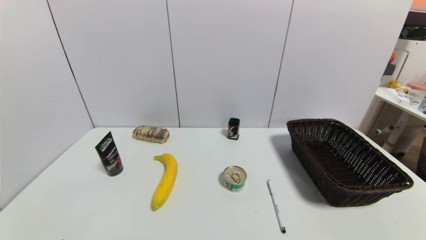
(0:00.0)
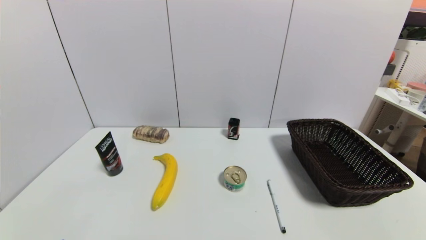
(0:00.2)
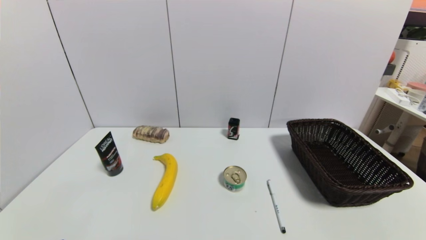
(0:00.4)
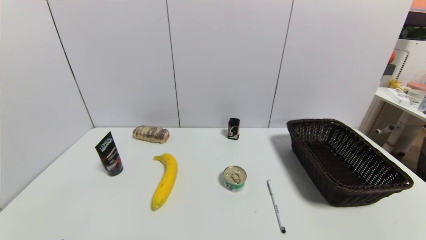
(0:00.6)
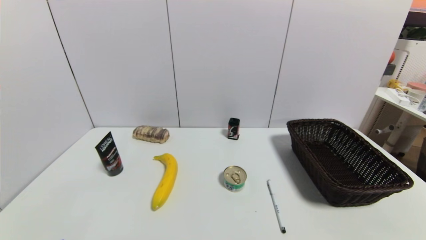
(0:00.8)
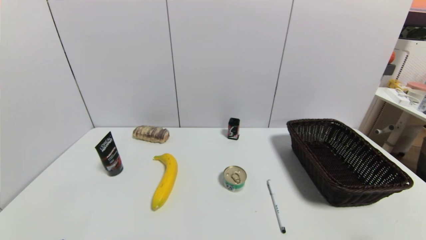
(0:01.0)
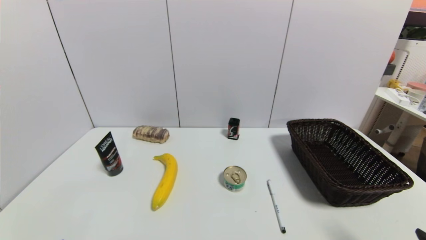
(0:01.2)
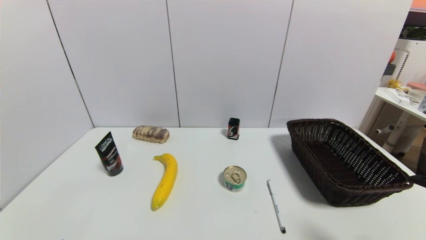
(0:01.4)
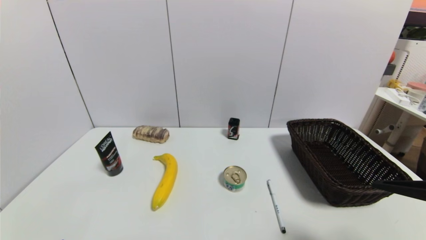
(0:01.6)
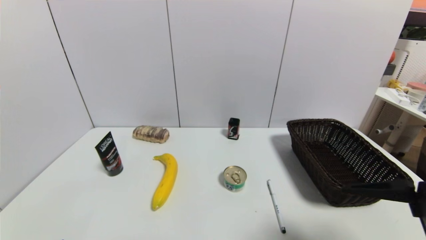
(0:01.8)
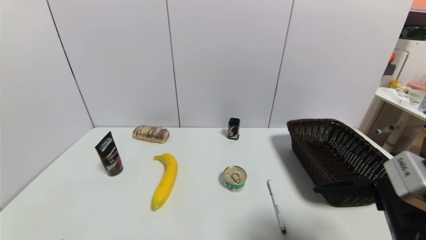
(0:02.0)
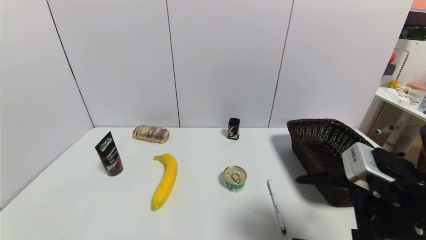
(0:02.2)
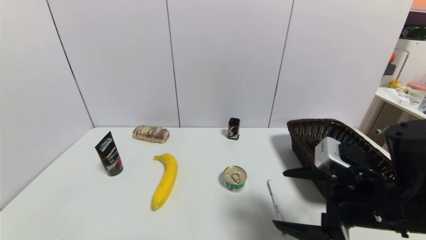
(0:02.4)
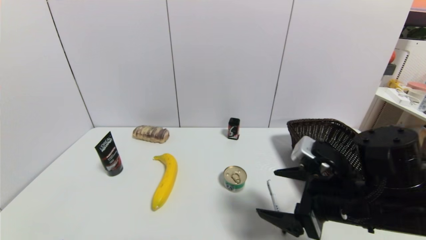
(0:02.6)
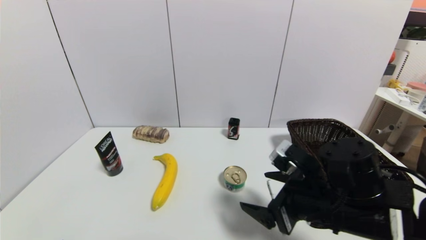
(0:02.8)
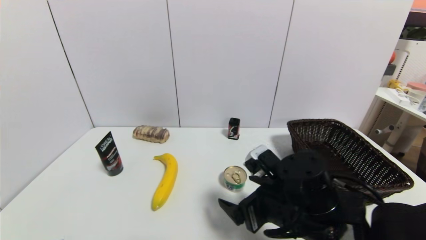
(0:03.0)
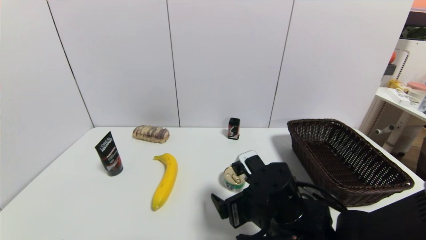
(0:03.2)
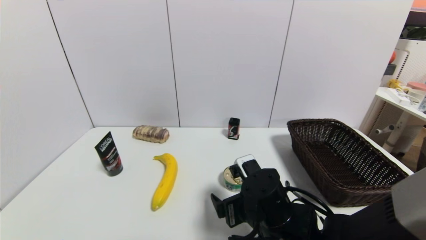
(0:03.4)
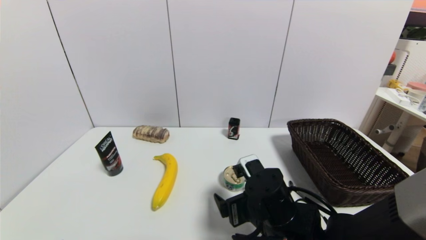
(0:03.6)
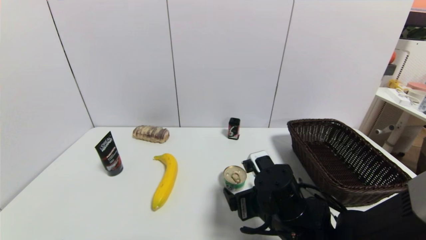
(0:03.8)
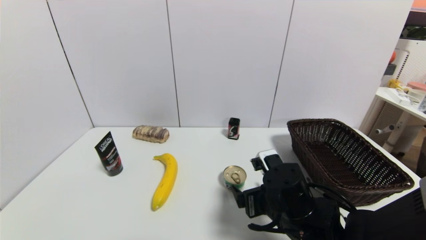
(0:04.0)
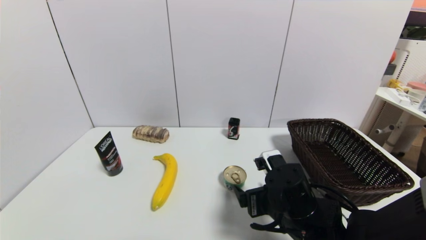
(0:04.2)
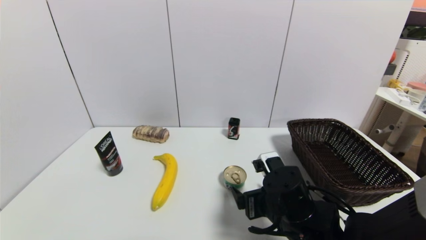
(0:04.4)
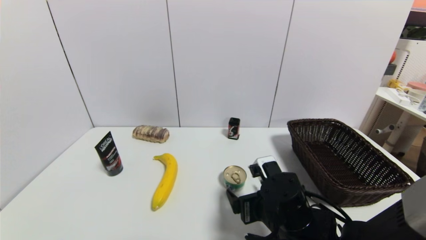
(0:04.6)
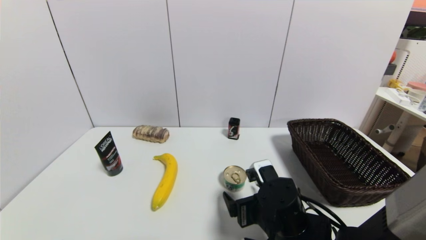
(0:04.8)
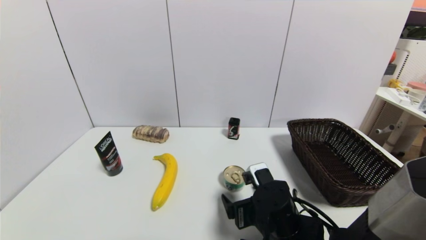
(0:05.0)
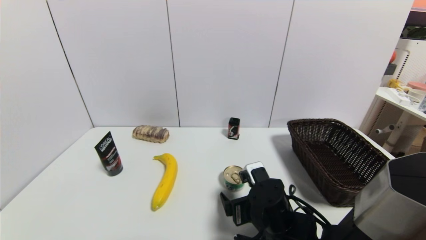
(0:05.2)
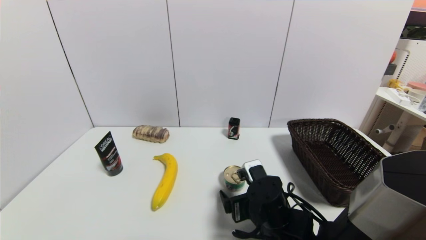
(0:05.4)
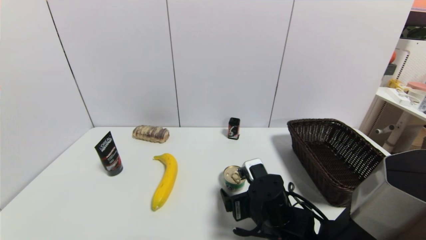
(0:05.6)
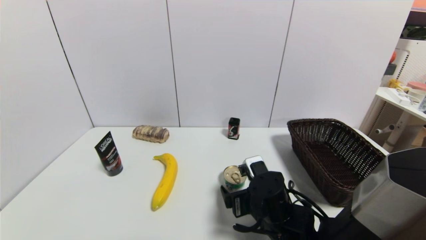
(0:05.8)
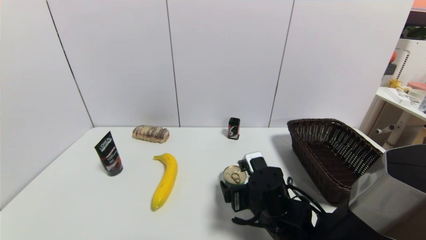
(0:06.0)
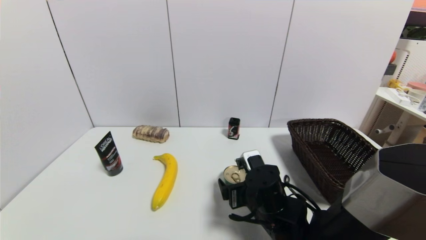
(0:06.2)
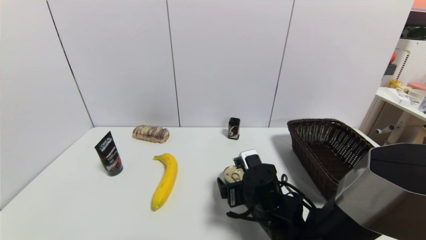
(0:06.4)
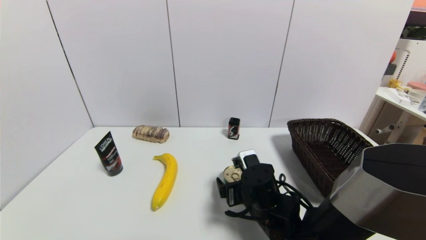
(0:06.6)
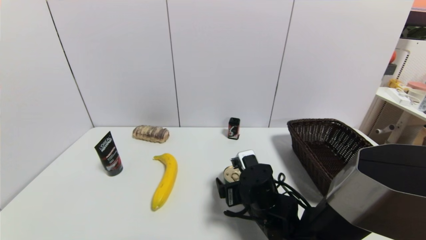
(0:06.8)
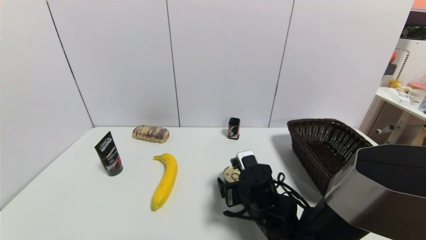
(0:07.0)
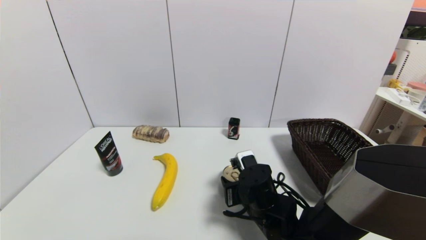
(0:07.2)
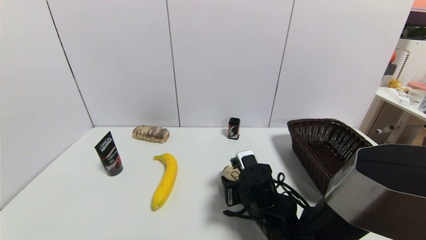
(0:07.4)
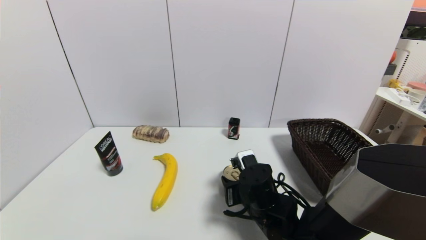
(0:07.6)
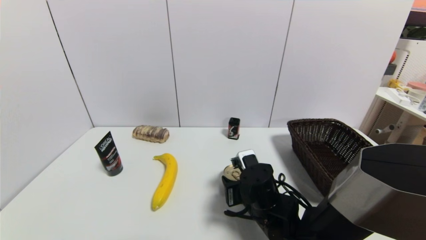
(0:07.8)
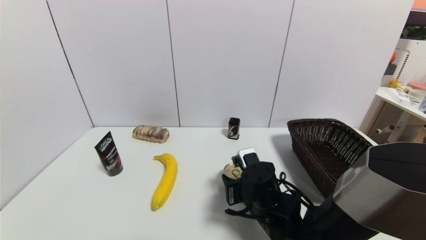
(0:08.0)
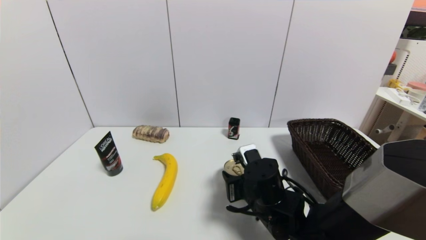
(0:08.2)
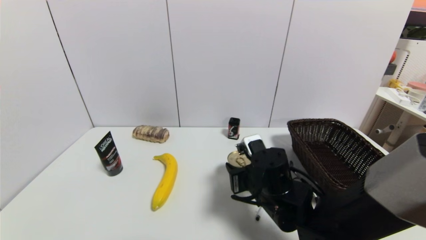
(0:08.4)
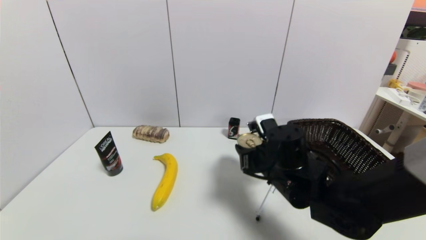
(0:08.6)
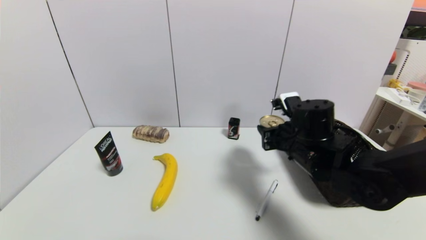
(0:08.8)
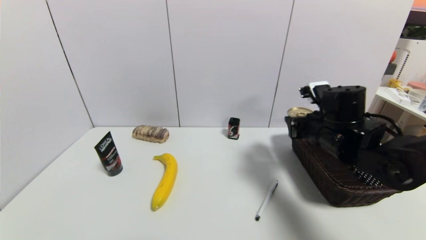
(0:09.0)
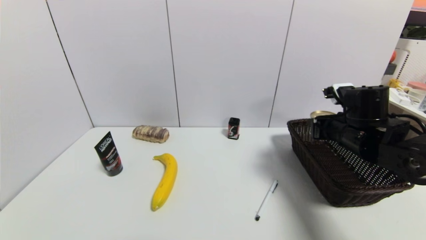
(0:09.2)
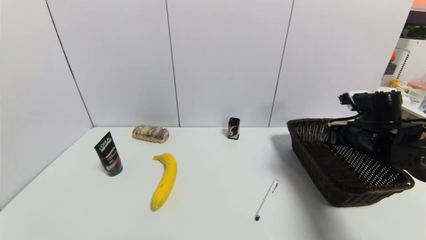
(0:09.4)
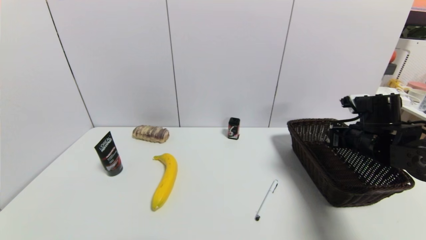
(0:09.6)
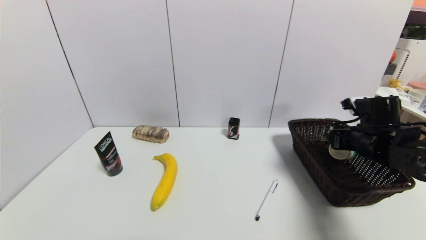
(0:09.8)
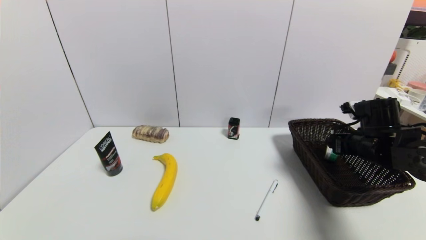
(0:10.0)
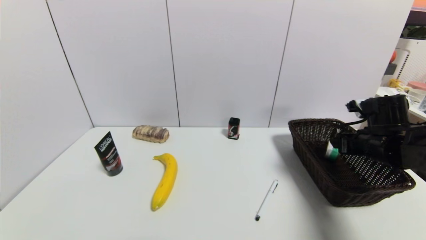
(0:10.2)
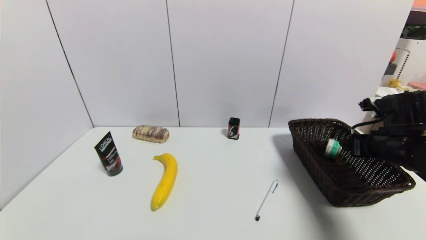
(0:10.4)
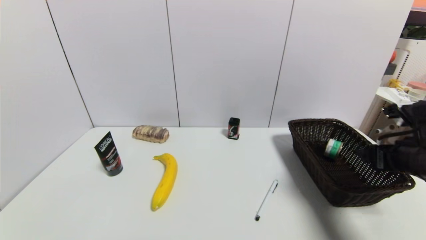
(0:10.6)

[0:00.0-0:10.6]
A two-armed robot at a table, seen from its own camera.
Task of the whole recording: use a gripper to pick the target object and place on the brown basket.
Step, 0:00.0 to 0:07.4: Grasp the tin with the right gripper.
Step, 0:07.6 to 0:10.6: Place the tin into the basket with the right gripper.
0:00.0 to 0:01.6: The right gripper goes roughly 15 cm upward and forward.
0:01.6 to 0:03.0: The right gripper travels to the left, forward and downward by roughly 25 cm.
0:04.6 to 0:06.0: There are only small adjustments of the grippers.
0:06.0 to 0:07.6: The right gripper closes.
0:07.6 to 0:09.0: The right gripper moves to the right, upward and forward, about 20 cm.
0:09.0 to 0:10.6: The right gripper is displaced to the right and backward by some 15 cm, and opens up.

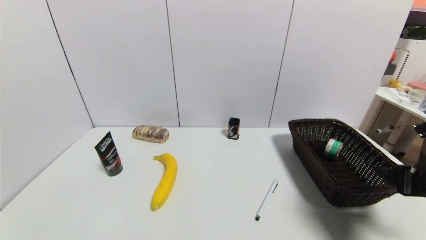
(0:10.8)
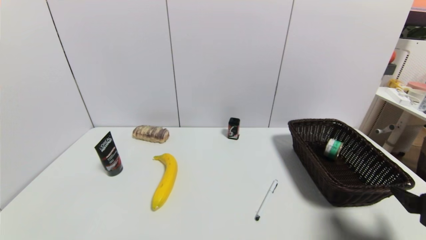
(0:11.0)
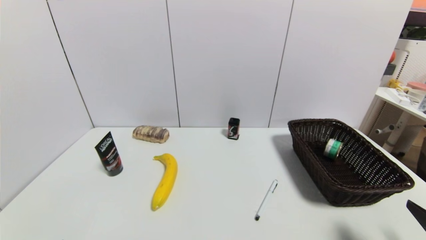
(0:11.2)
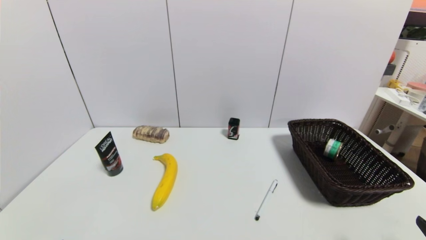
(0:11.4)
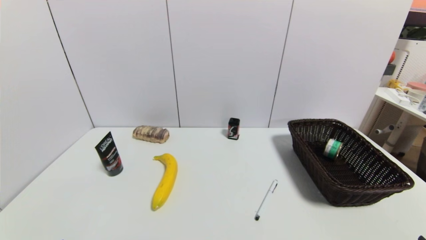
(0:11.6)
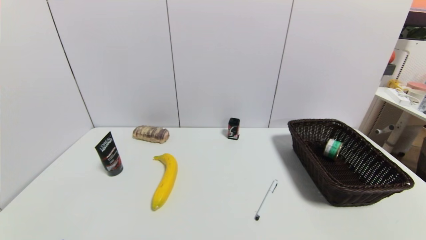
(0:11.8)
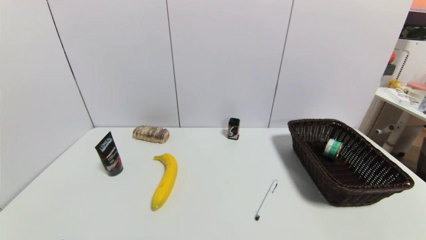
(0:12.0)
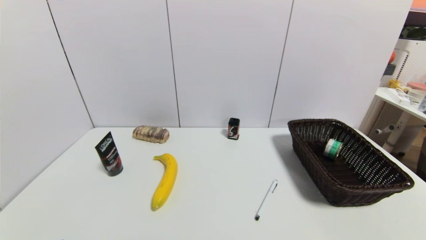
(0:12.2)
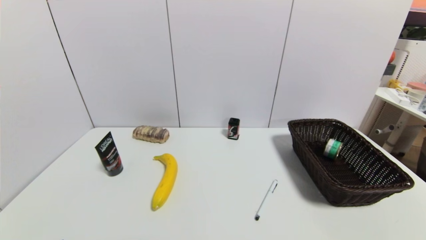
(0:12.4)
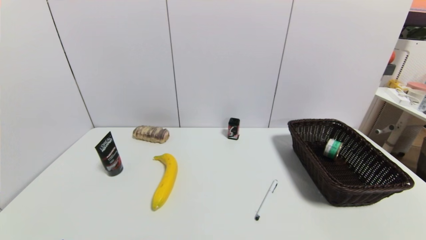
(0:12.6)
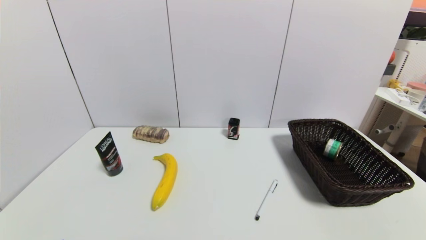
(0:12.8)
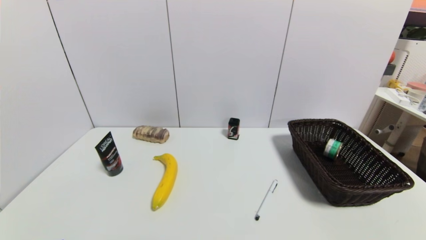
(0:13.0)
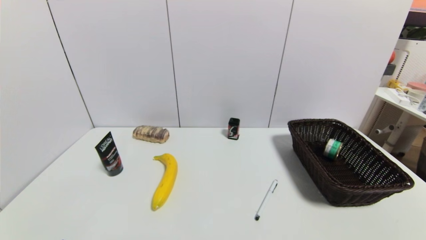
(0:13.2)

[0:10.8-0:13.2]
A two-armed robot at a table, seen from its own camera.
Task of the whole recording: use a gripper to pick the target object and place on the brown basket.
0:10.8 to 0:12.0: The right gripper travels backward and downward by approximately 20 cm.

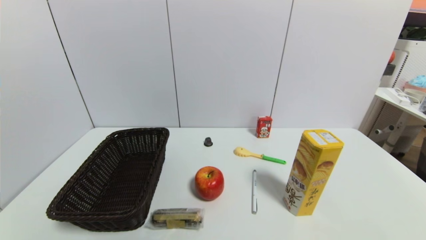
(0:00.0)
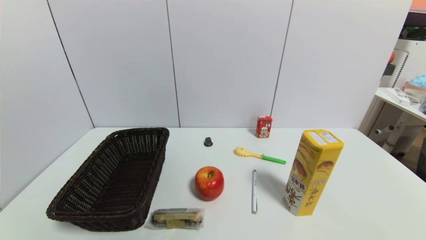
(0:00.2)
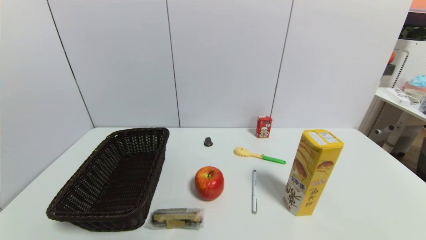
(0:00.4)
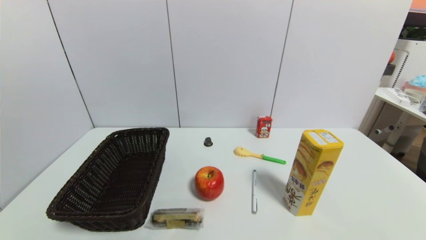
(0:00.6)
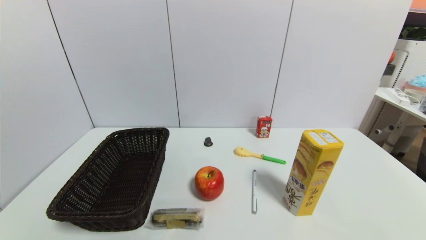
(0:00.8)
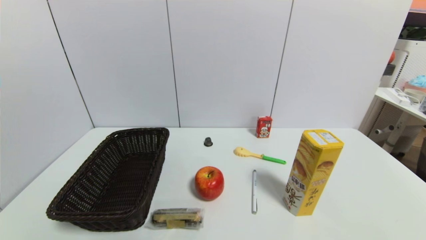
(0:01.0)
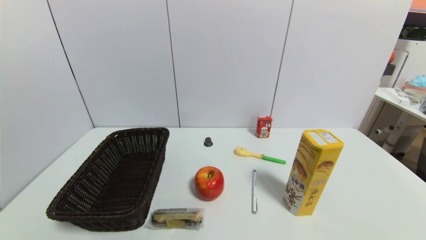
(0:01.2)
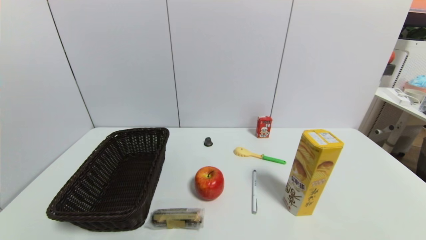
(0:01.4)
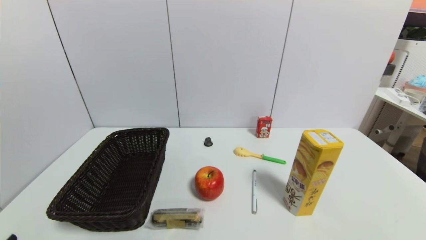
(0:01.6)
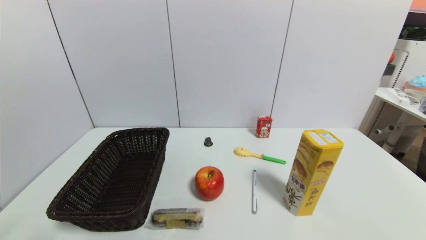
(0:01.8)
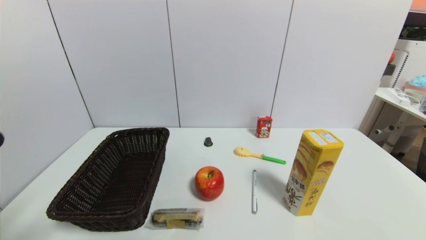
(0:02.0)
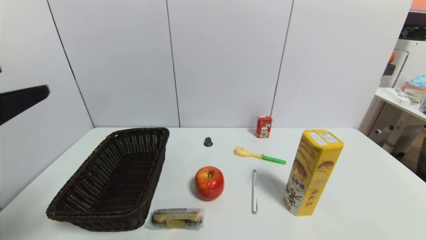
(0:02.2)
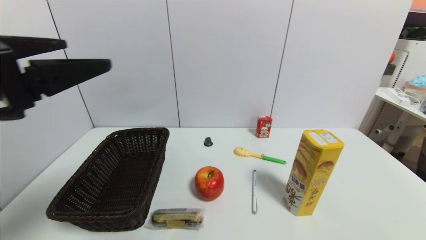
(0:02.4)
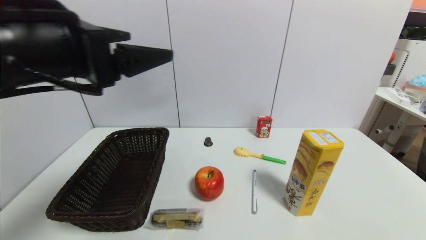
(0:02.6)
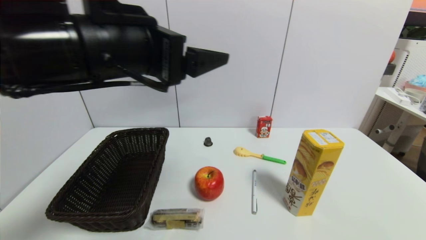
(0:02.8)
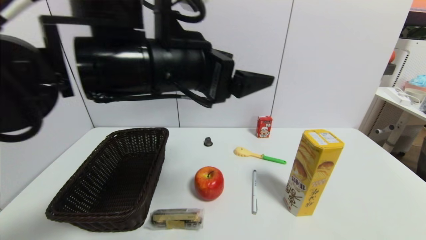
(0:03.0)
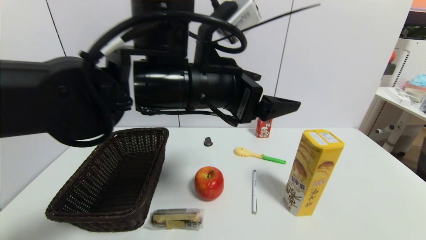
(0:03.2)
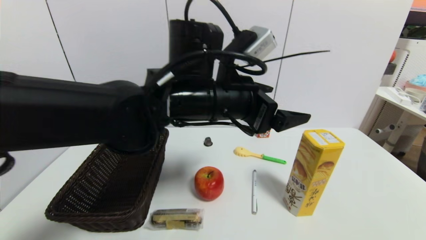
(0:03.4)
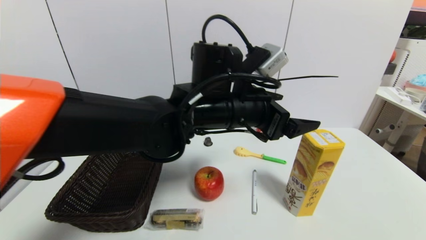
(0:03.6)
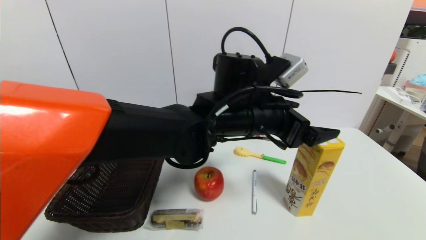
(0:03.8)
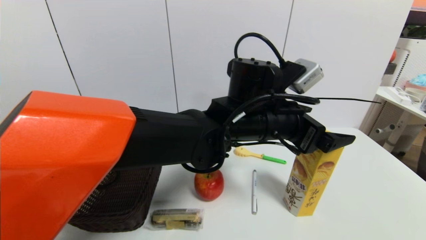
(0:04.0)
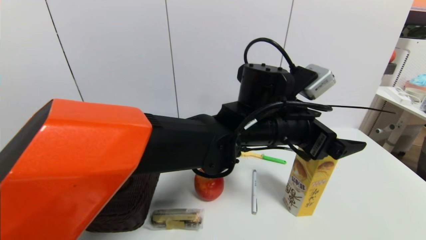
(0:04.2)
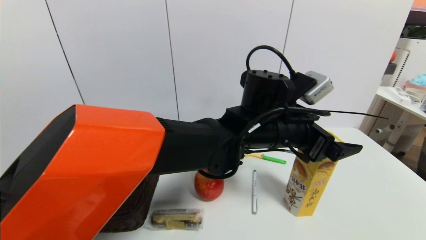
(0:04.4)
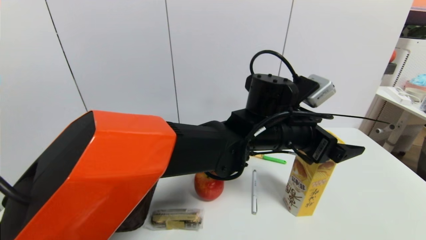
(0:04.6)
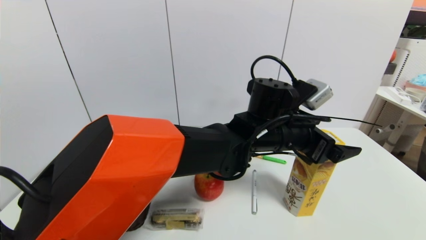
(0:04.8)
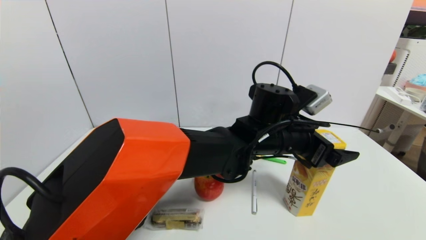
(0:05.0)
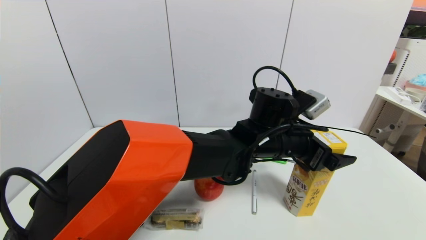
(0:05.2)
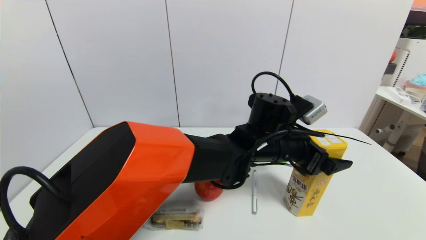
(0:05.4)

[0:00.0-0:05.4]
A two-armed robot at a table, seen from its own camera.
Task of the whole recording: use a gripper to pick the target object and place on the brown basket.
0:01.4 to 0:02.8: The left gripper goes approximately 40 cm upward, forward and to the right.
0:02.8 to 0:04.0: The left gripper travels to the right and downward by roughly 20 cm.
0:04.0 to 0:05.4: The left gripper is displaced downward by roughly 5 cm.
